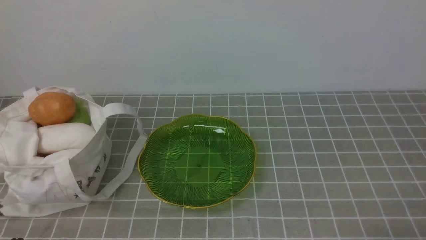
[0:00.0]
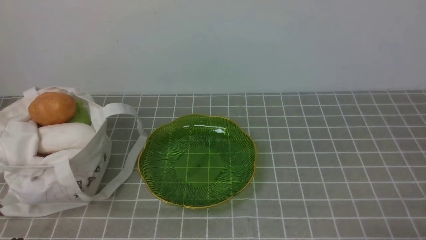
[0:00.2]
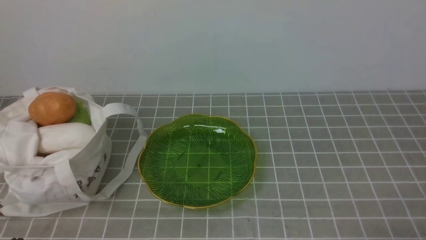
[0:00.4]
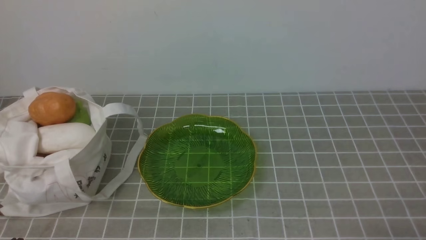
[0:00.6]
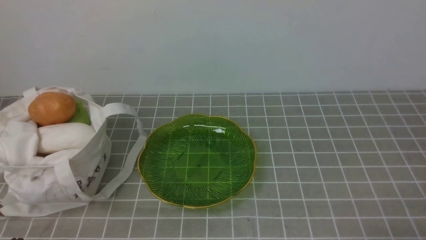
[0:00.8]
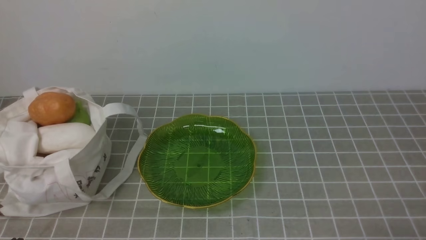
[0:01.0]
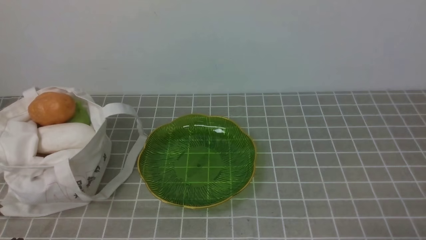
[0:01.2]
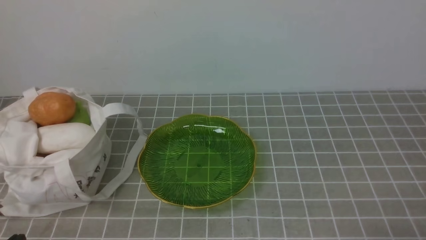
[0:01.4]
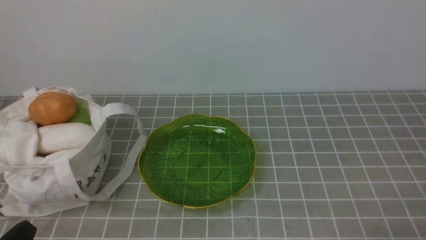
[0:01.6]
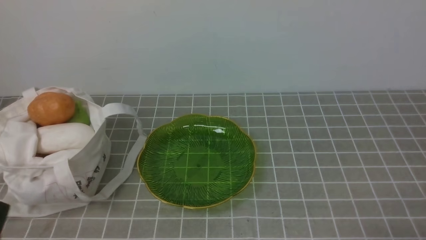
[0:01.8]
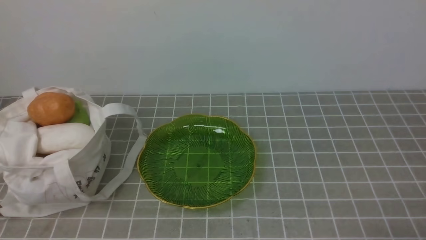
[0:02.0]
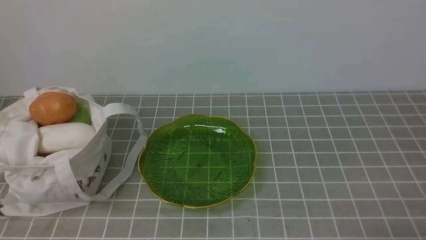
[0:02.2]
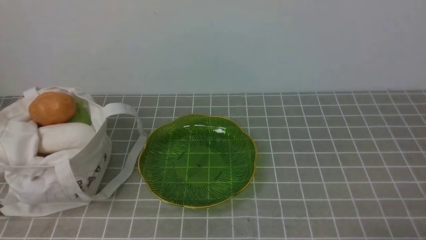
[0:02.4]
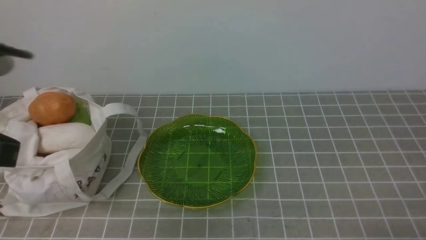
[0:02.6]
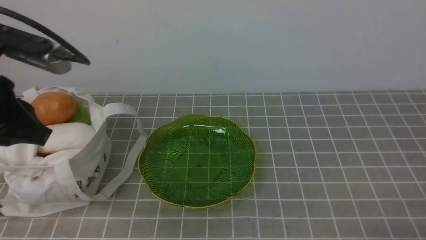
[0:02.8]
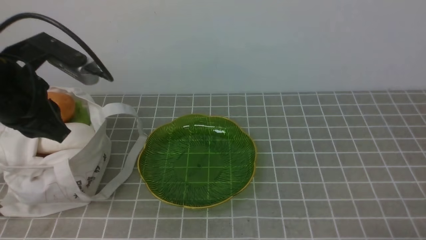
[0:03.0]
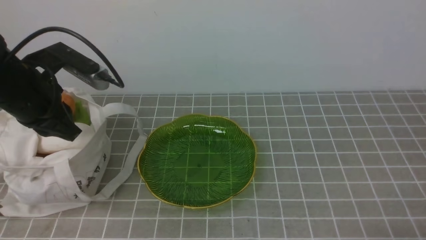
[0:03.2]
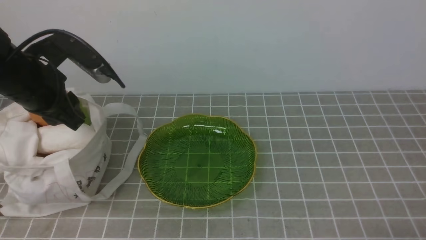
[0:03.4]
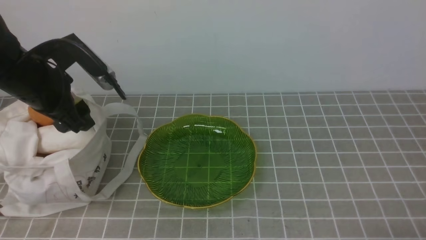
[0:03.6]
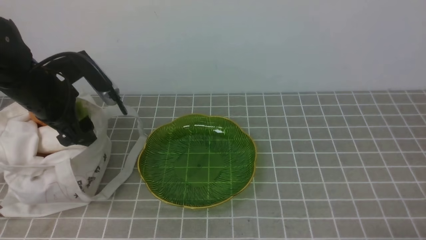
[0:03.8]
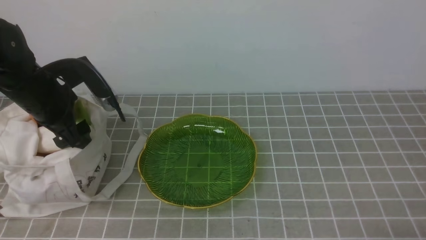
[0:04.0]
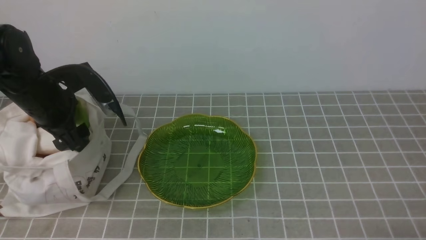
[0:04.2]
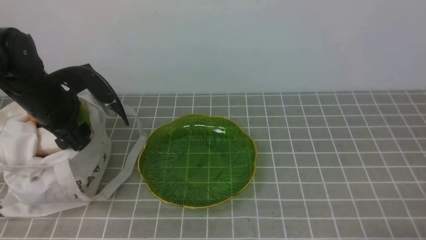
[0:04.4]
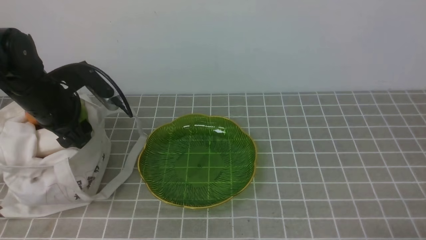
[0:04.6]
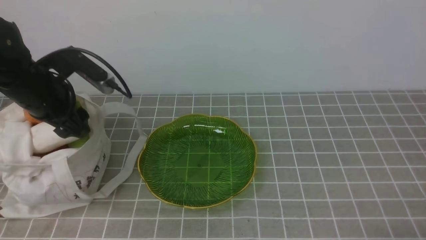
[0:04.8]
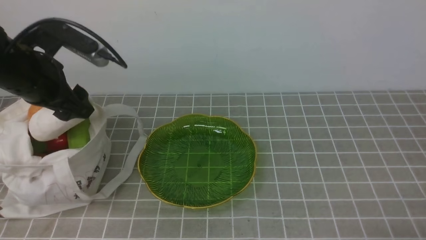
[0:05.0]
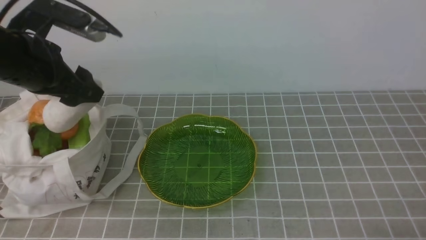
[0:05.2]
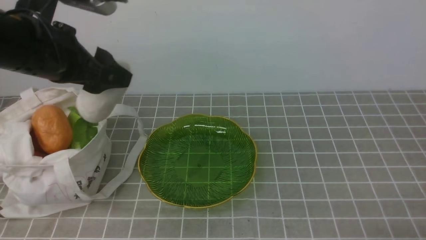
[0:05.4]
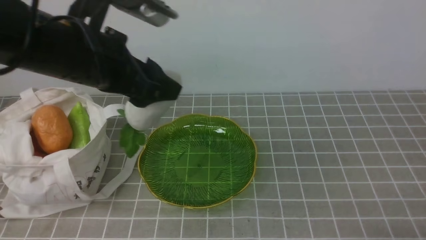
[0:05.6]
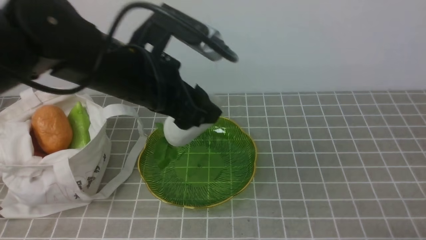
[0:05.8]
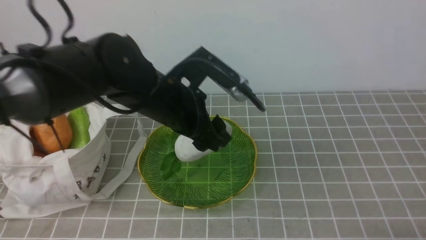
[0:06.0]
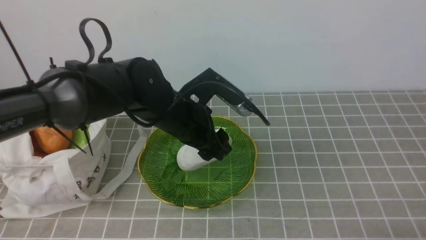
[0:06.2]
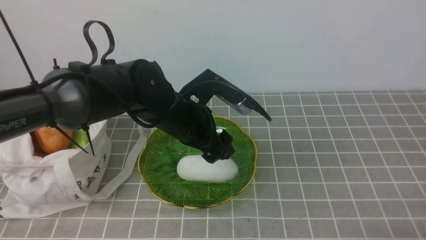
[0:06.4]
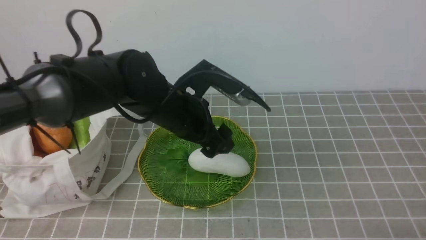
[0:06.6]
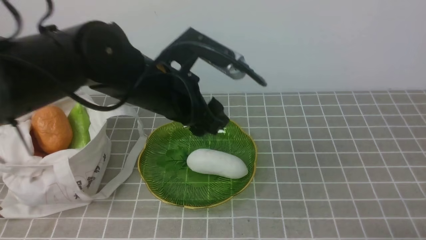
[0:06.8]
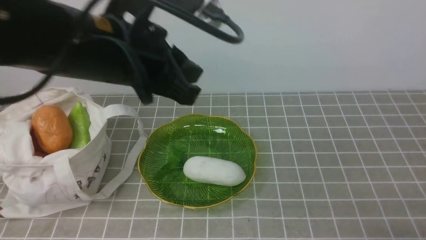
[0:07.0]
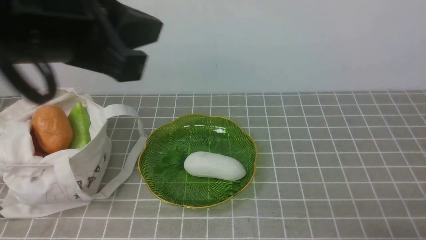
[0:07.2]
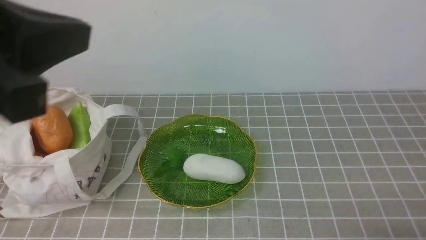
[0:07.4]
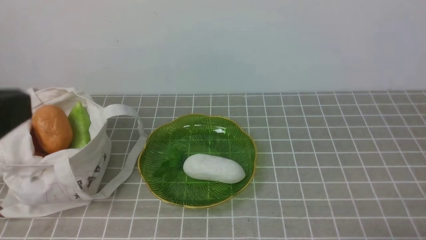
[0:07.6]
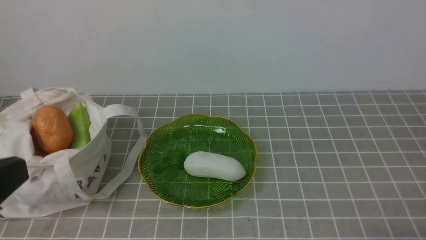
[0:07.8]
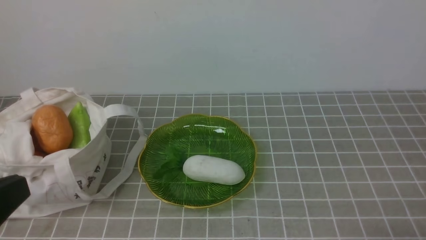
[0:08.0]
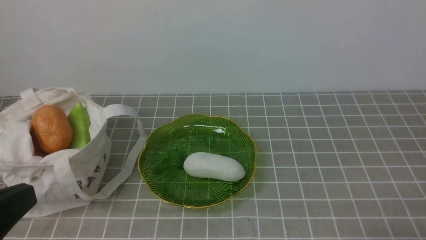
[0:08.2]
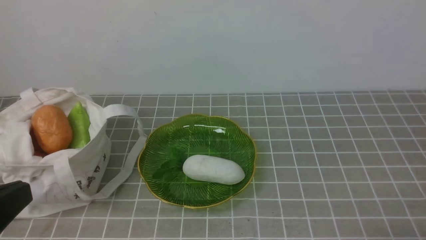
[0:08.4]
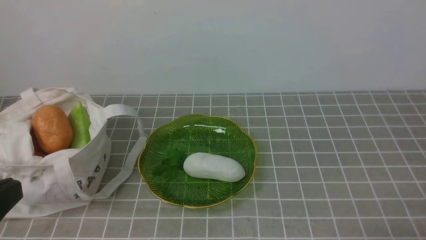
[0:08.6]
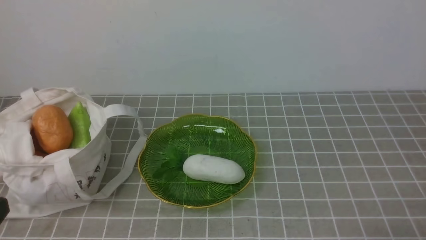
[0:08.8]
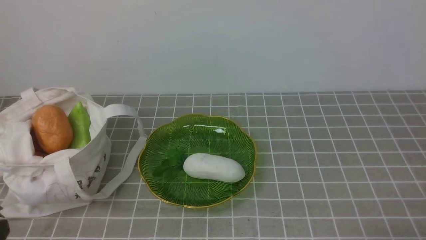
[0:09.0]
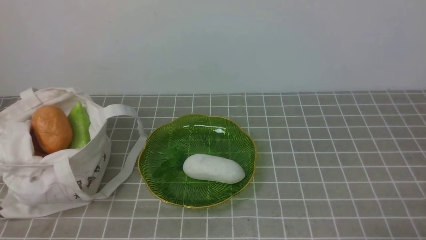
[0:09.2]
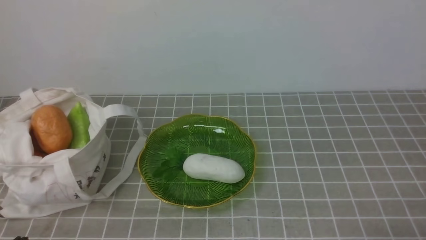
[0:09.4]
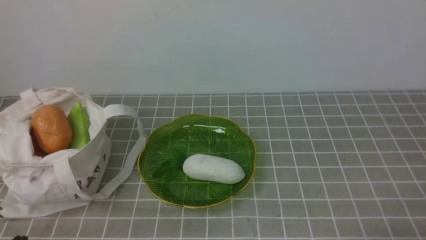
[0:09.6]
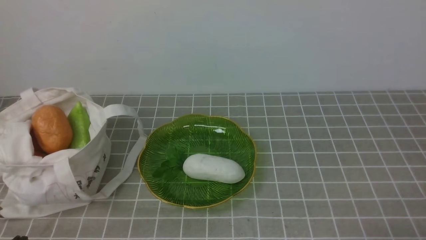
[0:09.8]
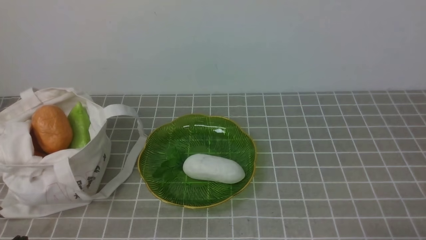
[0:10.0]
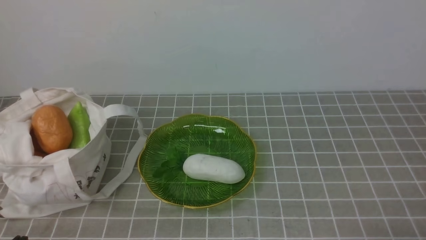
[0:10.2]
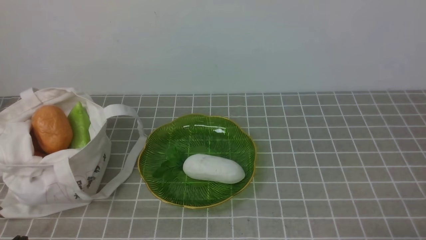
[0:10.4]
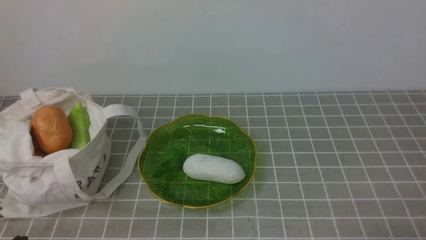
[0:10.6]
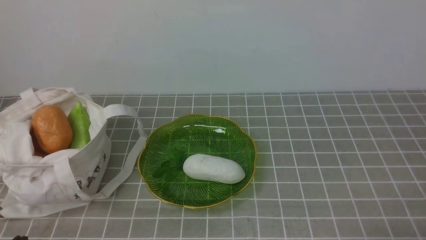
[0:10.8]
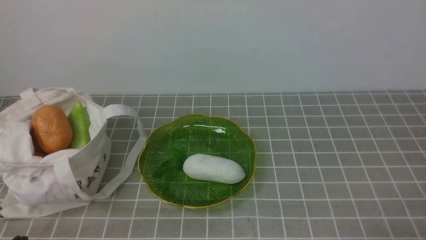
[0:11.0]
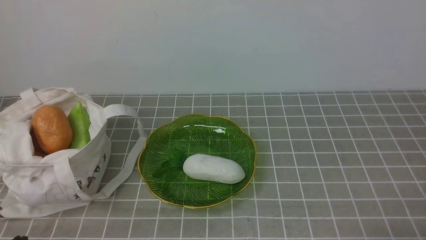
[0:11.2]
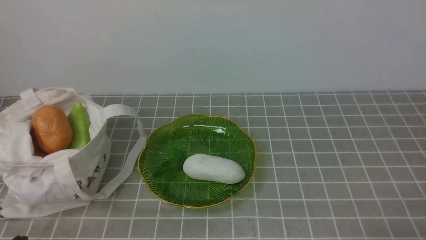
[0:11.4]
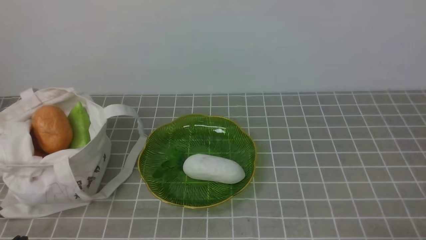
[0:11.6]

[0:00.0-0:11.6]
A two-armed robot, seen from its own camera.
Task of the whole recording: take vegetables from bag on grey coffee tablecloth place on plate.
Step, 0:00.0 to 0:04.4: Grasp the radish with left gripper.
Step, 0:04.6 to 0:06.8: Place the radish on the plate with left gripper.
0:01.4 to 0:02.8: The left gripper shifts roughly 25 cm upward and forward.
0:02.8 to 0:04.4: The left gripper heads forward and downward, covering some 20 cm, and opens its fingers.
0:04.4 to 0:05.8: The left gripper heads to the right, upward and backward, covering some 20 cm.
0:05.8 to 0:07.2: The left gripper moves upward and backward, about 10 cm, and closes its fingers.
0:07.2 to 0:08.8: The left gripper moves backward, downward and to the left, about 25 cm.
0:10.2 to 0:11.6: Both grippers stay about where they are.

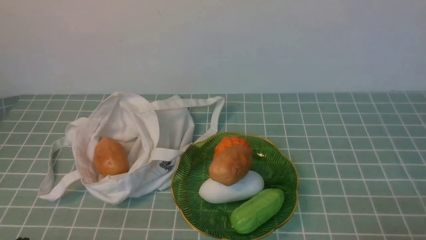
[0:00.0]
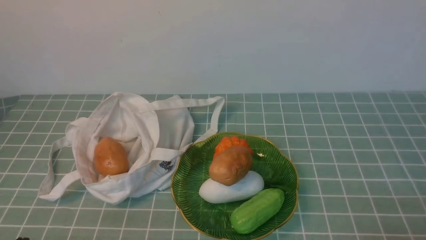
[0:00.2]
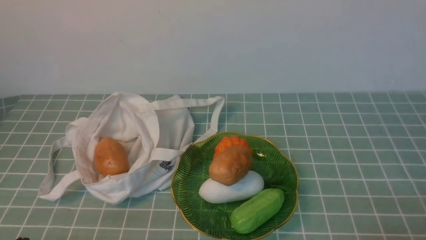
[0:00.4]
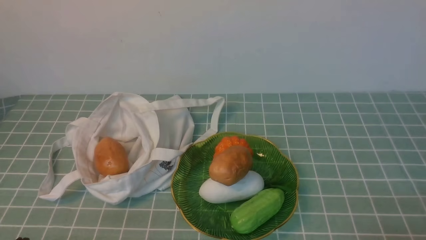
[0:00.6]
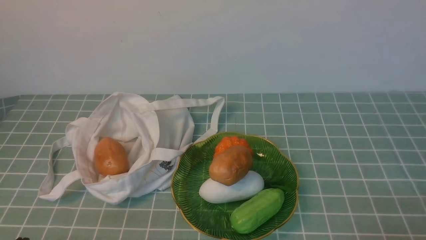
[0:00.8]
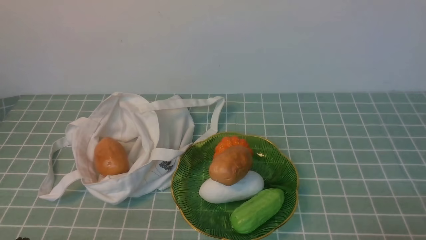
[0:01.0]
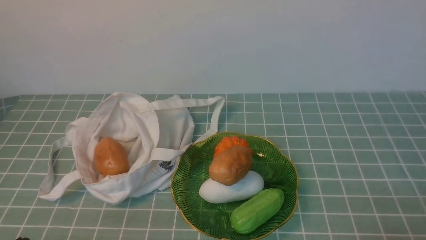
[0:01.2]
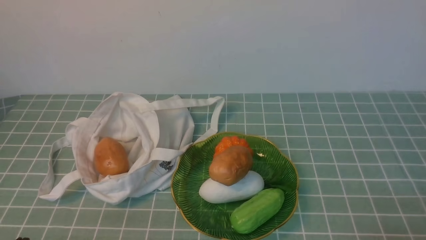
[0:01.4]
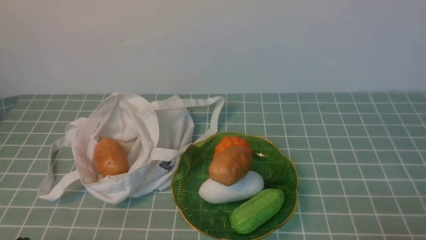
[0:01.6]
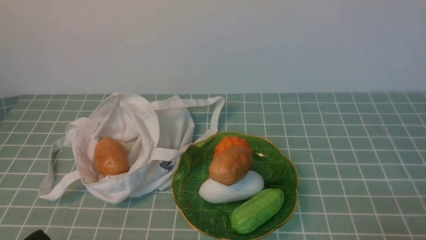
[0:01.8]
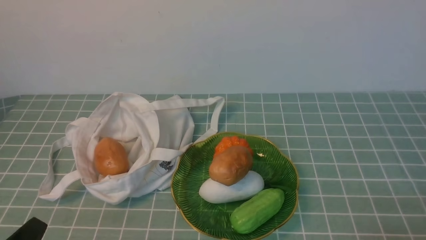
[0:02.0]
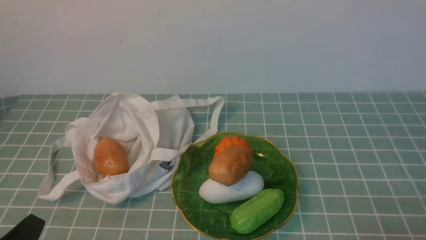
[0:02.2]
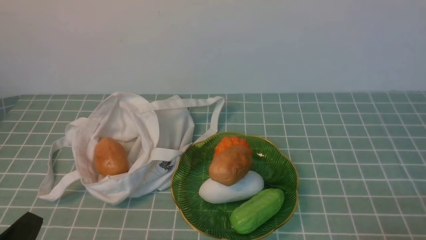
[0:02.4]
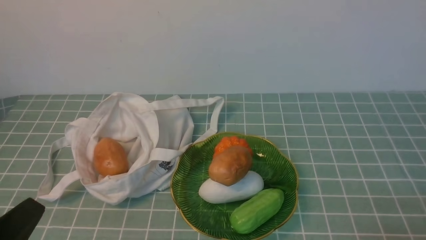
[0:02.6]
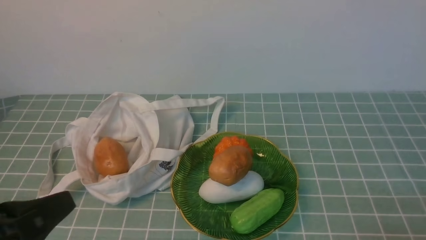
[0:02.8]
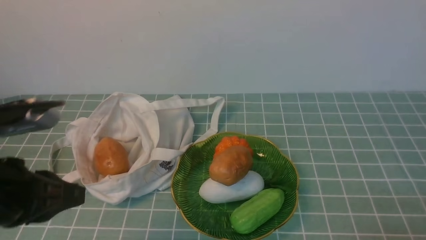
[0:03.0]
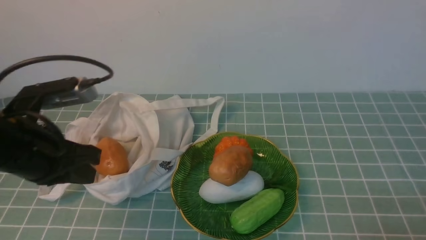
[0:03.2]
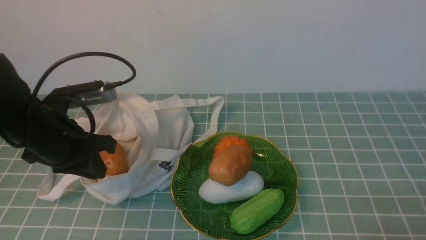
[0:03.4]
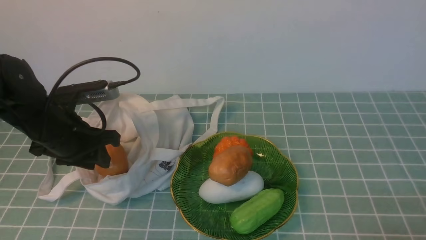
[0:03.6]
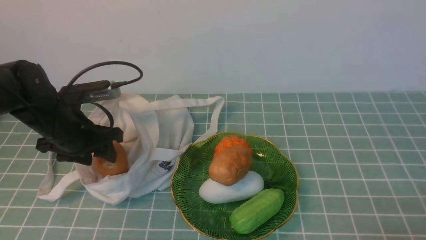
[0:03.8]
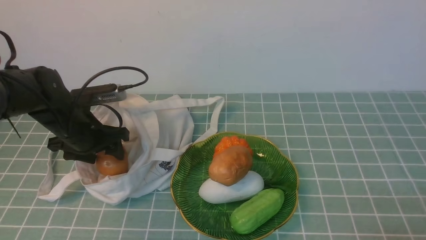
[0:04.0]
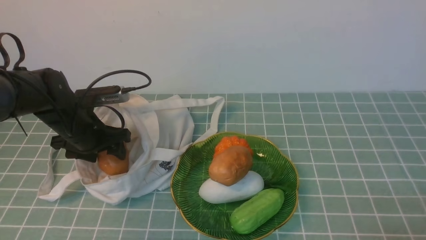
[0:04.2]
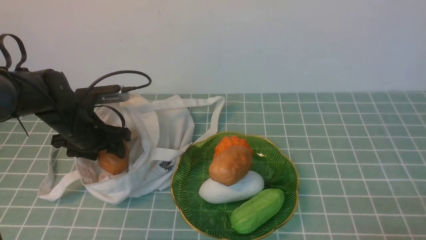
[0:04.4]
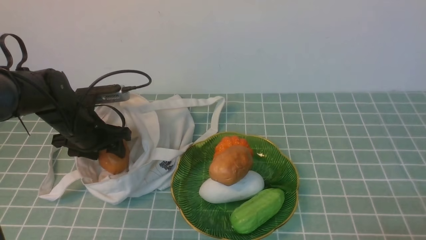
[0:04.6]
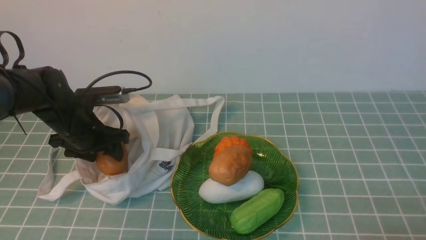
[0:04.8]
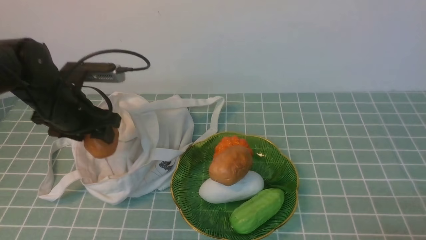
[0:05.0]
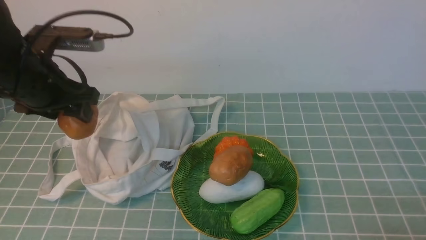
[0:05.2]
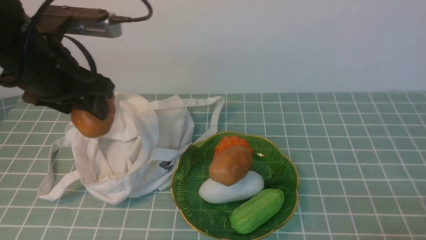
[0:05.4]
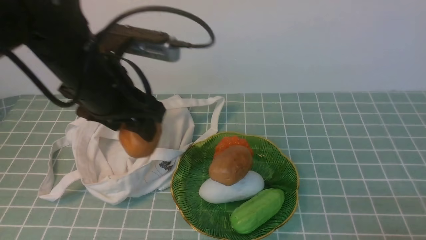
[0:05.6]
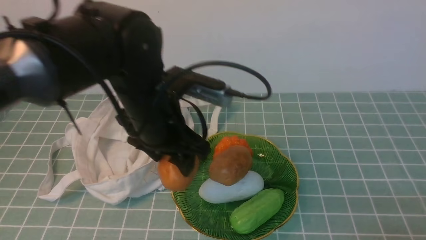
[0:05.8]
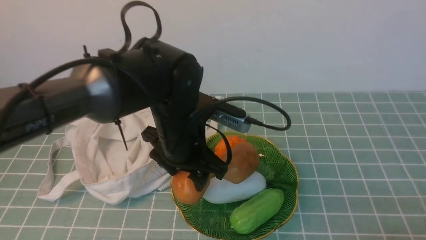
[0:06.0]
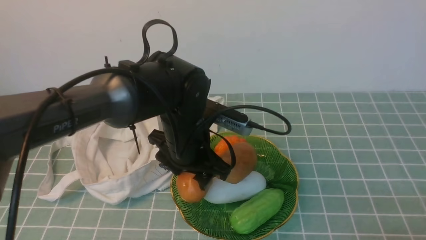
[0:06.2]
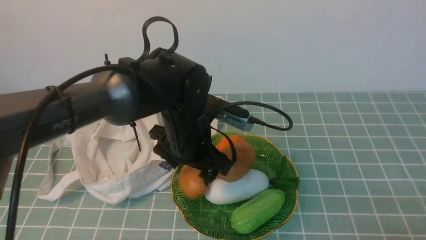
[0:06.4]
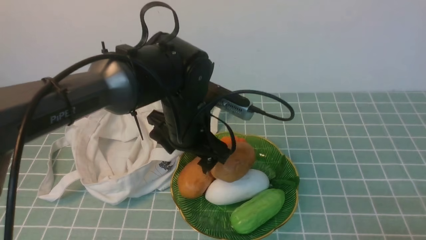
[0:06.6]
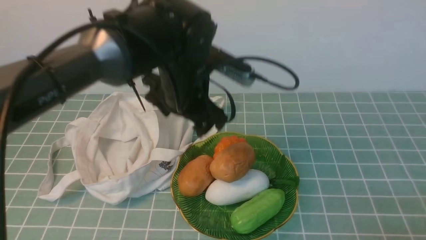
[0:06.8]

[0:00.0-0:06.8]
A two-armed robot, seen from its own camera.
Task of the whole recording: take vegetables from cloth bag on blue coffee tablecloth place on plate.
Step, 0:00.0 to 0:04.2: Grasp the potato with left gripper.
Step, 0:04.4 to 0:06.8: Place the potato on the plate with left gripper.
0:01.4 to 0:02.8: The left gripper shifts approximately 10 cm upward.
0:02.8 to 0:04.0: The left gripper shifts about 30 cm forward, and opens.
0:04.0 to 0:05.4: The left gripper shifts approximately 15 cm upward.
0:05.4 to 0:06.8: The left gripper heads to the right, covering about 15 cm.
